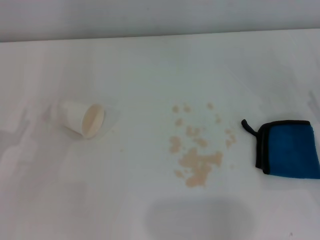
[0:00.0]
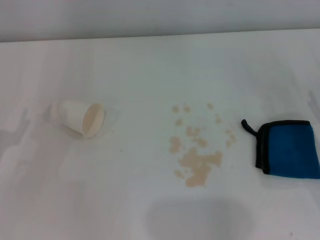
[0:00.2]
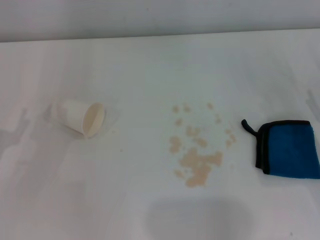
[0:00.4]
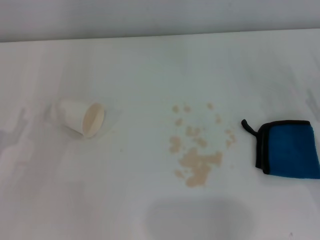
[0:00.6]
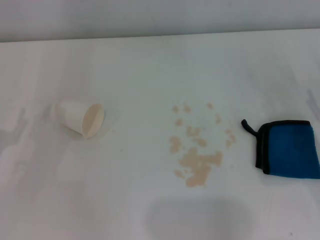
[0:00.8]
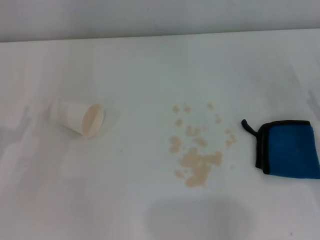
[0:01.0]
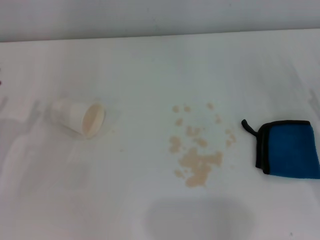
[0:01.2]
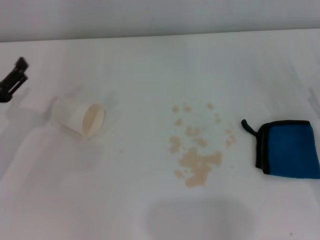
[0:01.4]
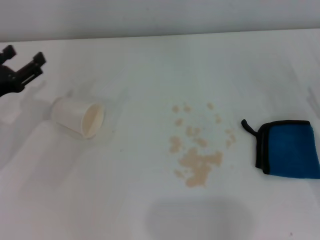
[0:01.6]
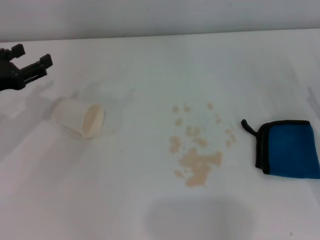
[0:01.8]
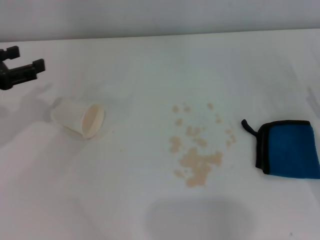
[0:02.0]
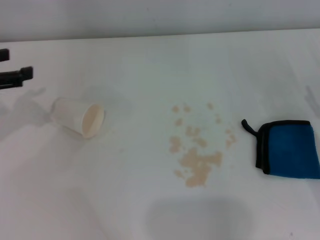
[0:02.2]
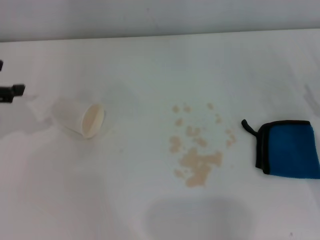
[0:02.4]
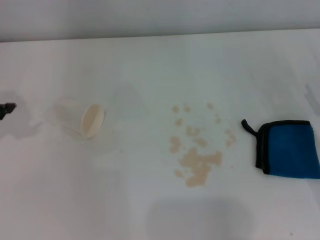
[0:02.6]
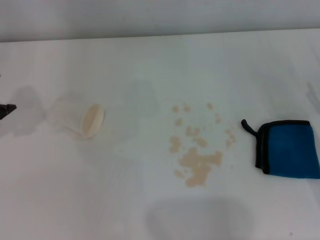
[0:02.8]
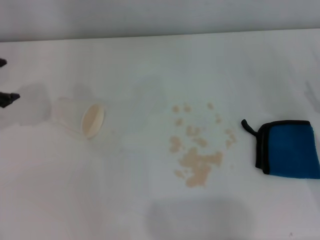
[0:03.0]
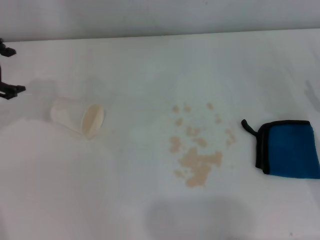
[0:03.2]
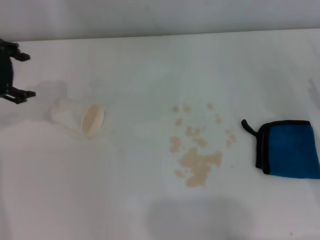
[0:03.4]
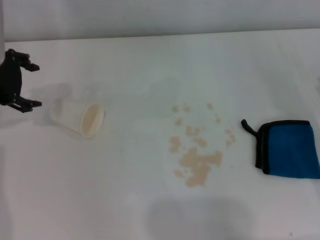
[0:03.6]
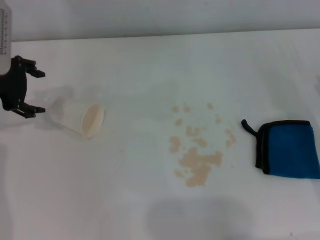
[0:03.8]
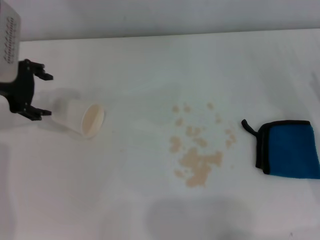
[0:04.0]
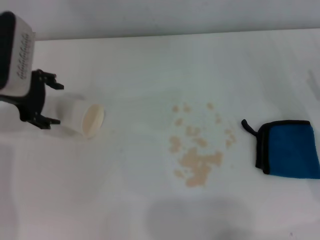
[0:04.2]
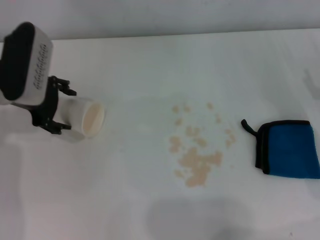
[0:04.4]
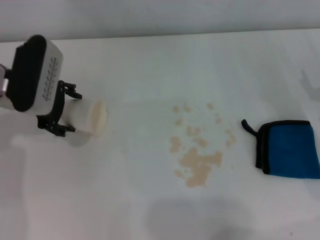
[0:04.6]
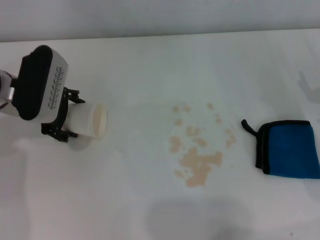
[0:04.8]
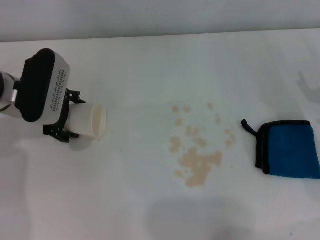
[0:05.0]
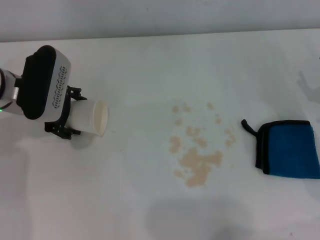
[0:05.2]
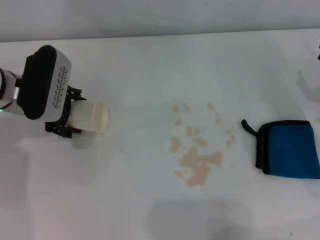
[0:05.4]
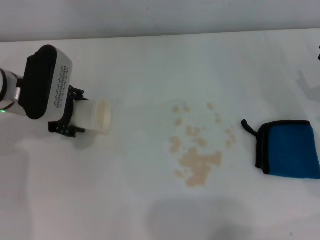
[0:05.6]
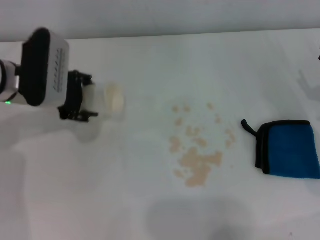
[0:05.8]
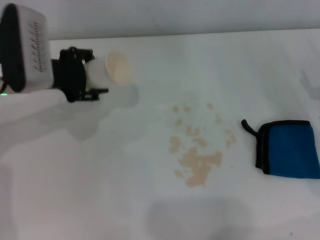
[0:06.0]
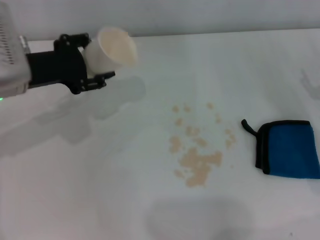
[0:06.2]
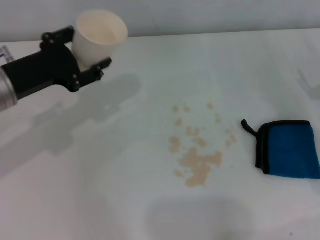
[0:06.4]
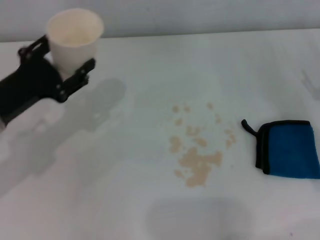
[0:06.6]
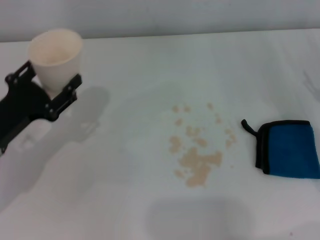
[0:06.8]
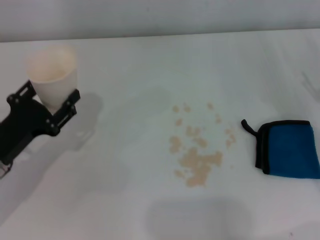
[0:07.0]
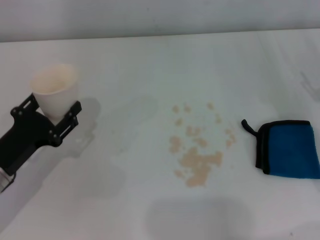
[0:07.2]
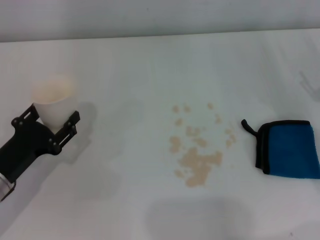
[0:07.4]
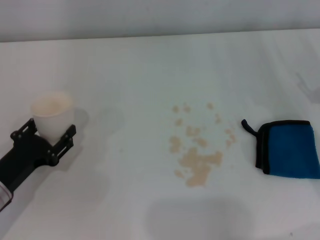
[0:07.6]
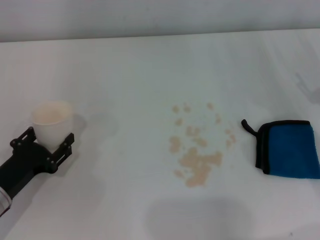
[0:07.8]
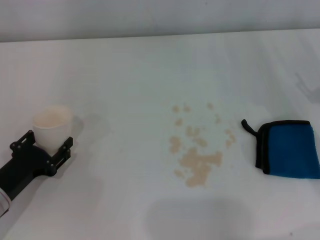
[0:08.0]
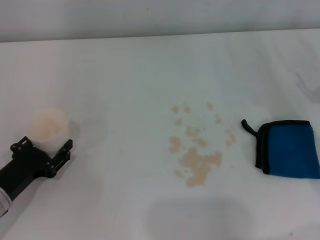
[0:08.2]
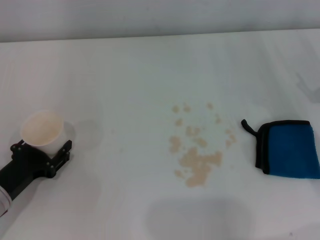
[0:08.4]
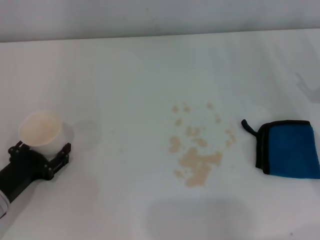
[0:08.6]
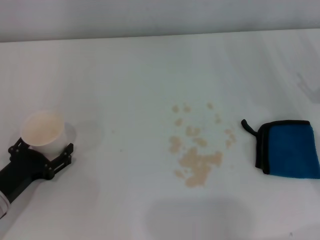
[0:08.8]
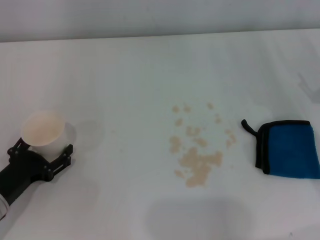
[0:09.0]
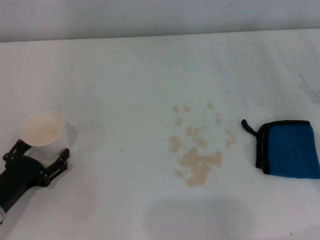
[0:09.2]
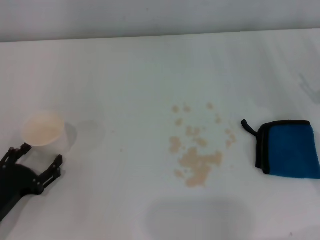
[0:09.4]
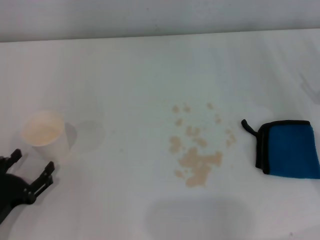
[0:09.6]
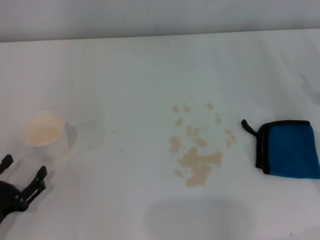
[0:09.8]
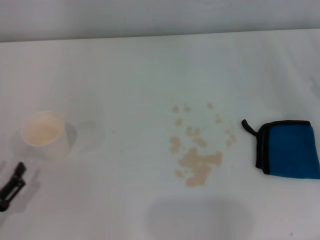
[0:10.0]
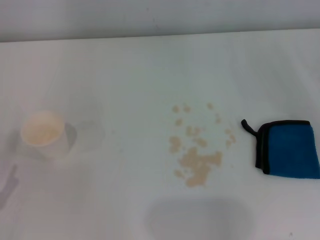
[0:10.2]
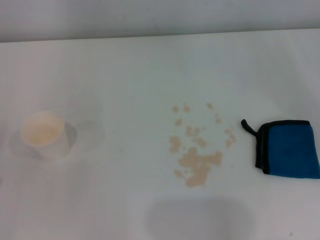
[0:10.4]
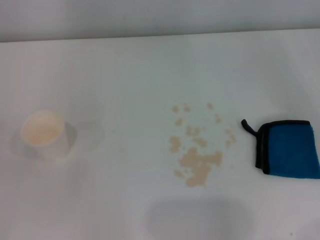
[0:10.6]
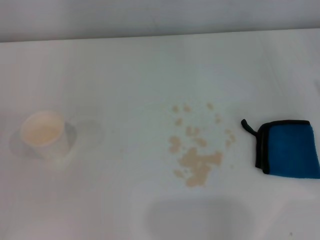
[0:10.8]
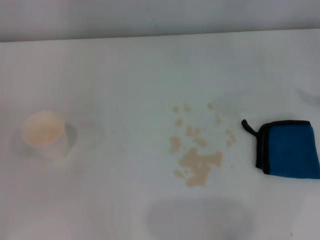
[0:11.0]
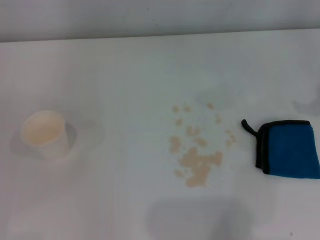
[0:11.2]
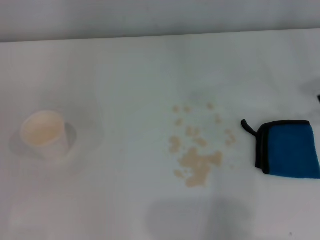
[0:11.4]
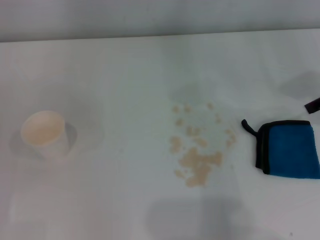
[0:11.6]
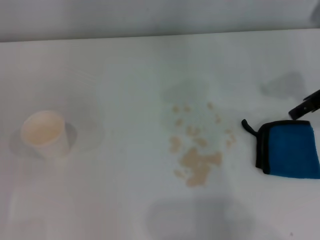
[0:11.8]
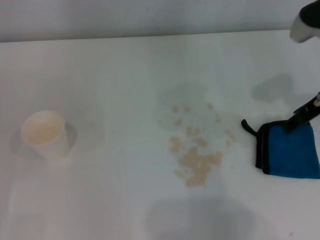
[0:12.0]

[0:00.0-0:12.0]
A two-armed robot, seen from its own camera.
Step, 0:00.0 to 0:08.8: Stand the paper cup upright with the left gripper.
0:00.0 to 0:01.6: The left gripper moves forward, about 10 cm.
0:01.6 to 0:03.0: The left gripper shifts about 15 cm upward and forward.
0:03.0 to 0:04.4: The left gripper travels to the right and downward by roughly 10 cm.
0:04.4 to 0:06.0: The left gripper closes up.
0:06.0 to 0:07.6: The left gripper moves backward, downward and to the left, roughly 20 cm.
0:07.6 to 0:09.0: The left gripper opens its fingers.
0:09.0 to 0:10.4: The left gripper is displaced backward and to the left by some 10 cm, and opens.
0:10.4 to 0:12.0: The right gripper shifts roughly 20 cm to the left and forward.

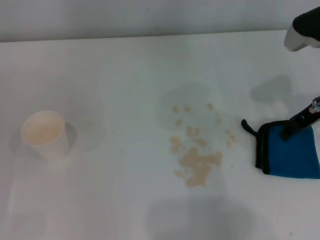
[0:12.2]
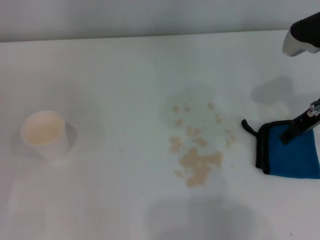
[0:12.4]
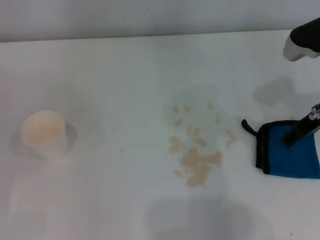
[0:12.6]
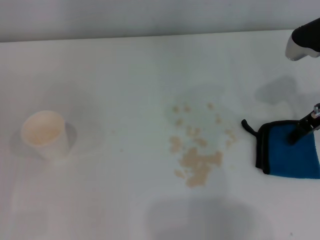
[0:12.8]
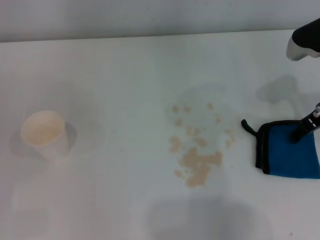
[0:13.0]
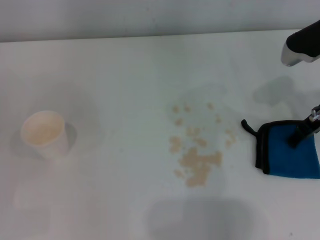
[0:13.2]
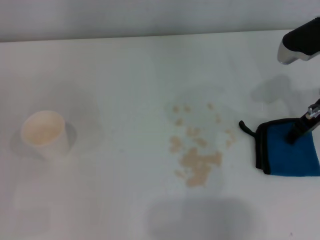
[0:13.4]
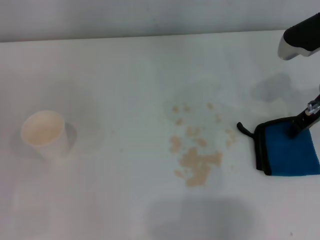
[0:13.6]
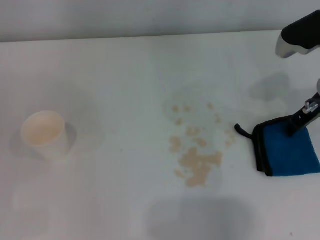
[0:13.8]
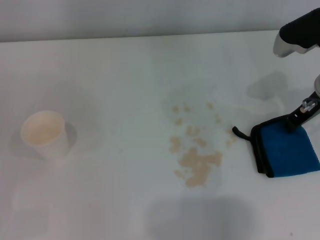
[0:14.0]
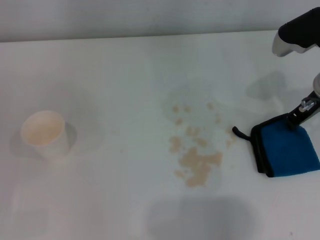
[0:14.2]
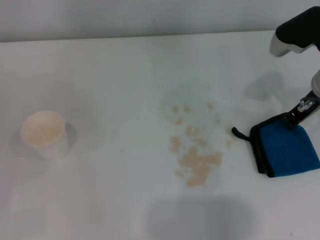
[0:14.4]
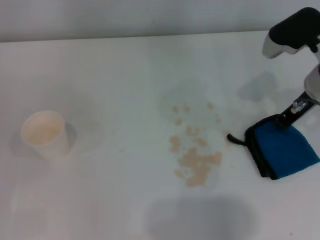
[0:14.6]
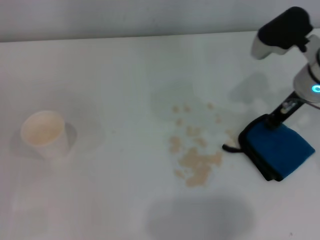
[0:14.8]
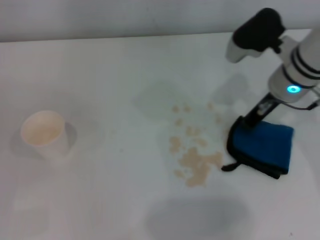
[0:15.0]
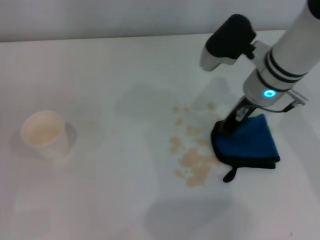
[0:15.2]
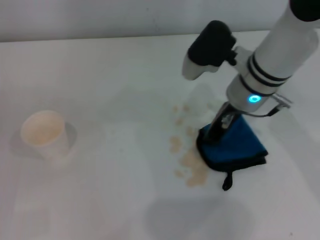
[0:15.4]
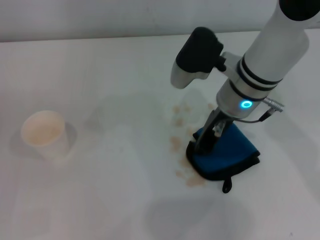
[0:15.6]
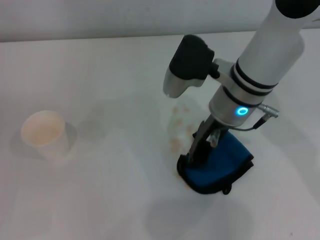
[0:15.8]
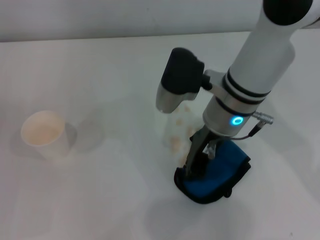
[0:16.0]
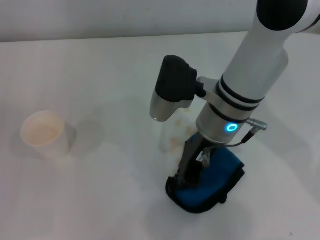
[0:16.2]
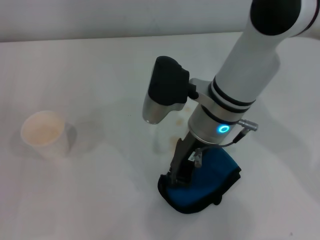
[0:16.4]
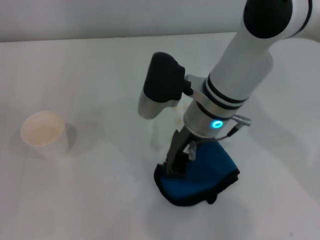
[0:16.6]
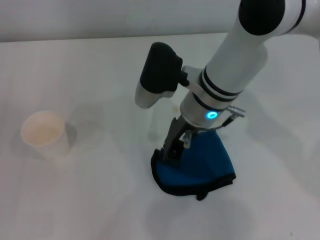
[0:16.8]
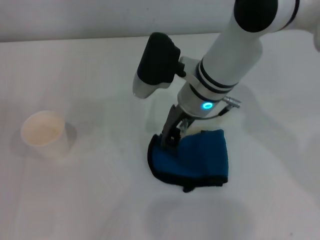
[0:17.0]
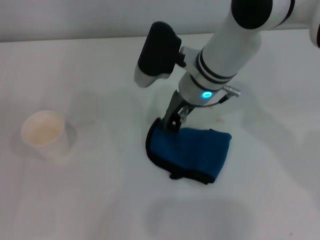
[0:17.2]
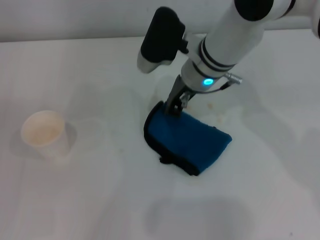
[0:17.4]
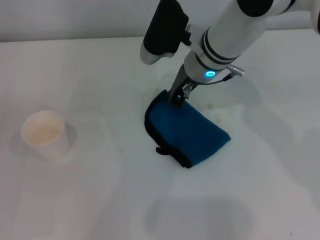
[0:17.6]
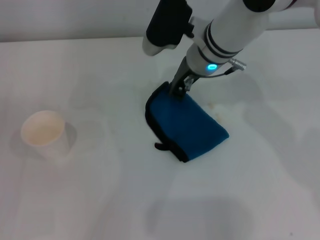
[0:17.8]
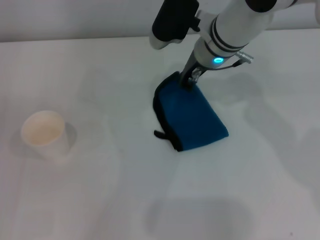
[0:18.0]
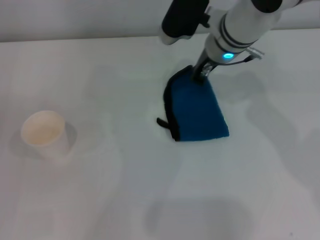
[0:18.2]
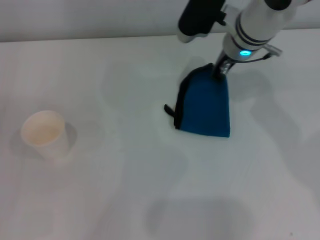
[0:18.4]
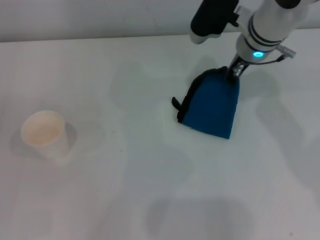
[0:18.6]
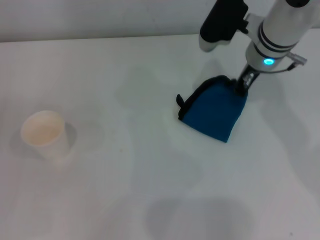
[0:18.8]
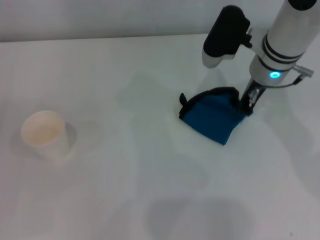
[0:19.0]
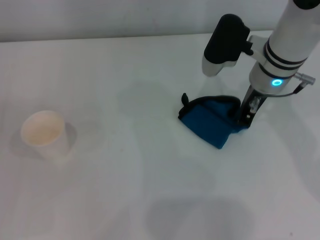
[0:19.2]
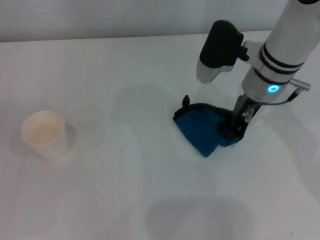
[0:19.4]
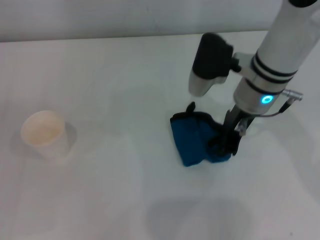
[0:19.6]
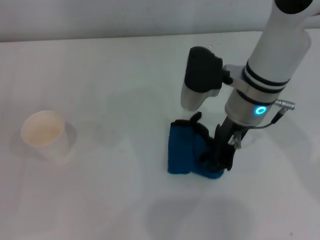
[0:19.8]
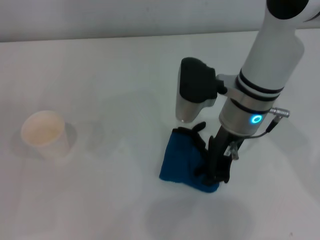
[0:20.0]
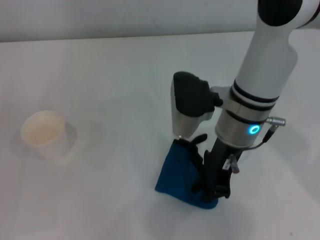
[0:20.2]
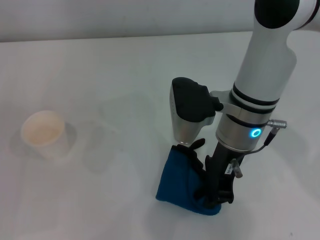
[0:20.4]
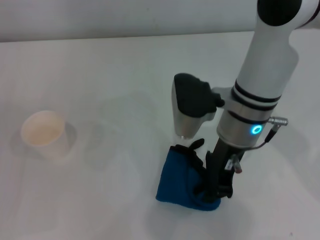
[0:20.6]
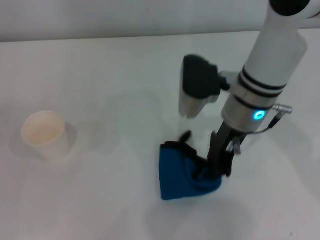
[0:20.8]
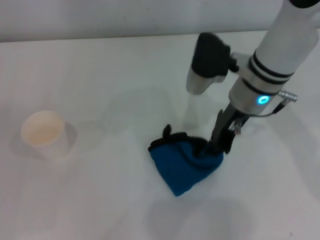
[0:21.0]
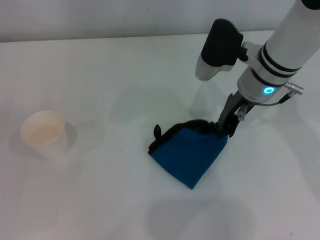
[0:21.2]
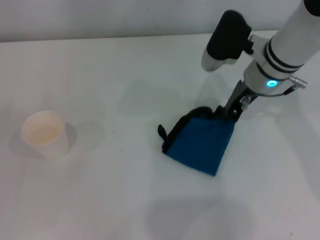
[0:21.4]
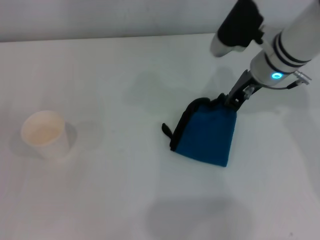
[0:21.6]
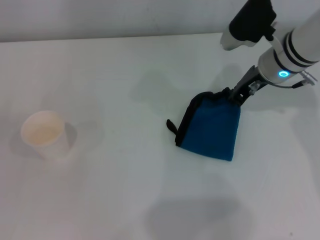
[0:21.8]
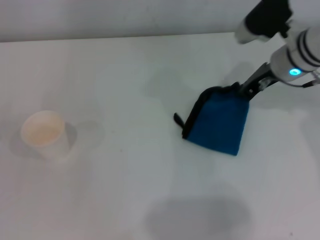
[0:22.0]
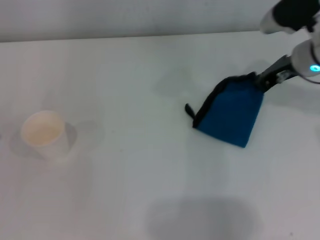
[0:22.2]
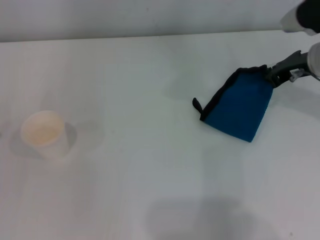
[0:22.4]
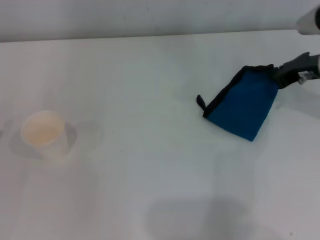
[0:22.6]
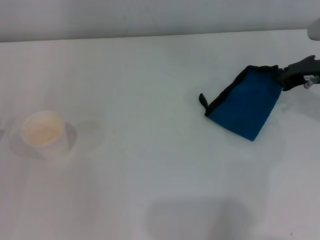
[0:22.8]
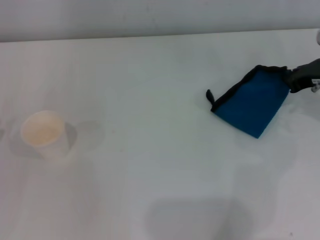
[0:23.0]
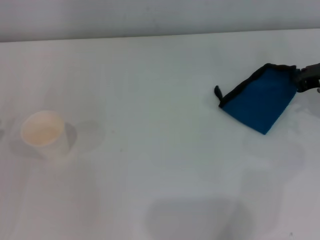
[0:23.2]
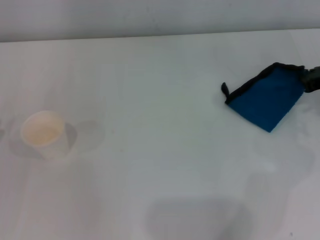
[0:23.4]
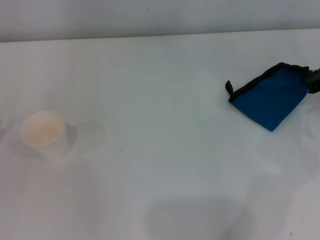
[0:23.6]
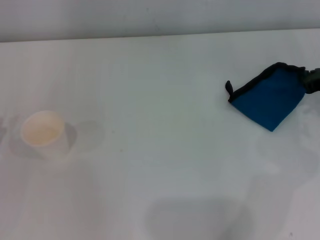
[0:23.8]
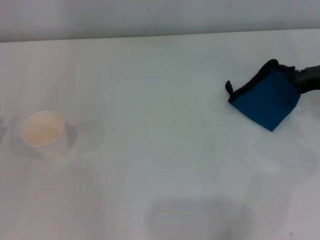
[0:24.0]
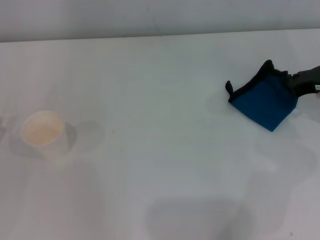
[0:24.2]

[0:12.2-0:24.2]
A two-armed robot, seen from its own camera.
Step, 0:13.4 to 0:22.6: Wipe the stains off the table with the right gripper.
0:12.2 to 0:13.8: The right gripper closes up.
0:13.8 to 0:15.2: The right gripper shifts some 10 cm to the left, and closes.
0:15.2 to 0:16.6: The right gripper goes some 10 cm to the left.
0:16.6 to 0:18.2: The right gripper heads forward, covering approximately 10 cm.
0:18.2 to 0:19.8: The right gripper shifts approximately 10 cm backward.
0:19.8 to 0:21.2: There are only small adjustments of the grippers.
0:21.2 to 0:22.6: The right gripper goes roughly 15 cm to the right.
0:22.6 to 0:24.2: The right gripper moves approximately 5 cm.
